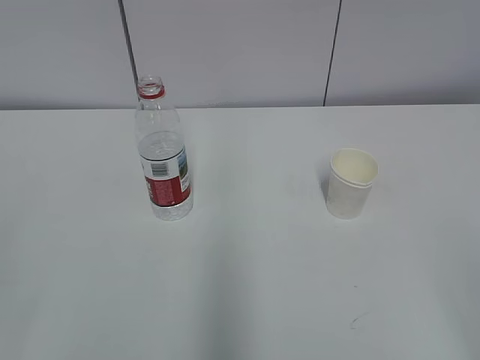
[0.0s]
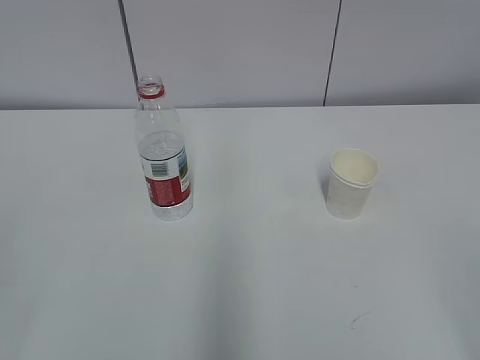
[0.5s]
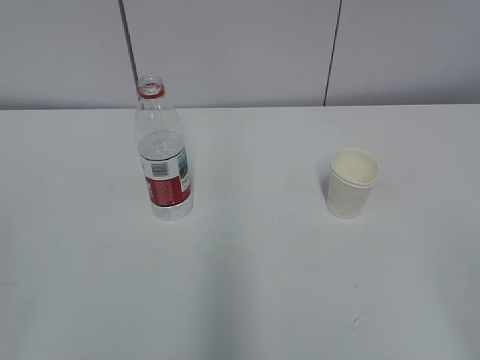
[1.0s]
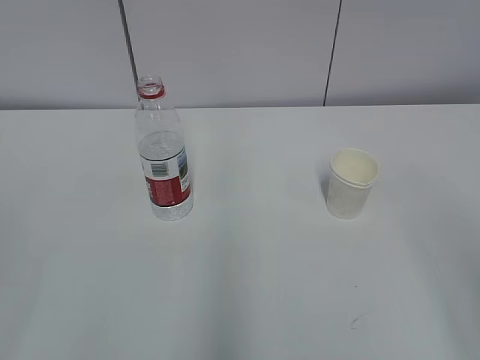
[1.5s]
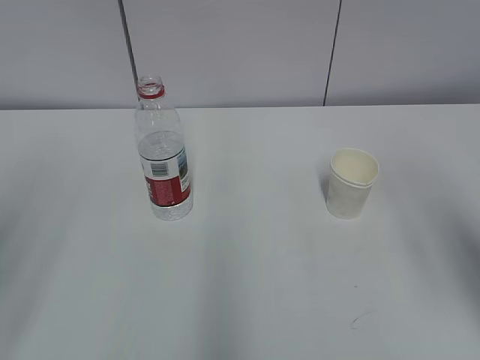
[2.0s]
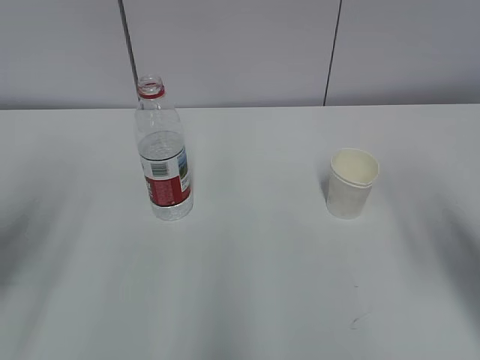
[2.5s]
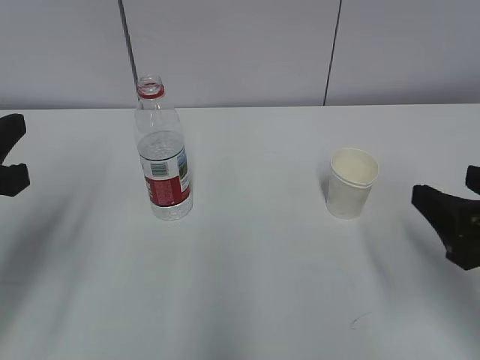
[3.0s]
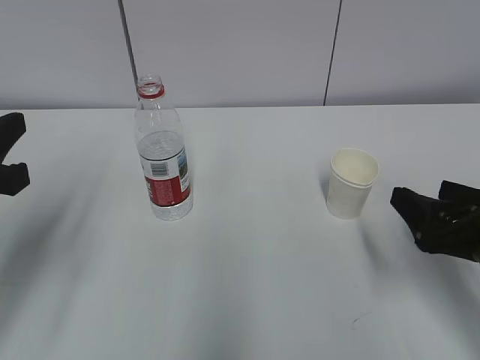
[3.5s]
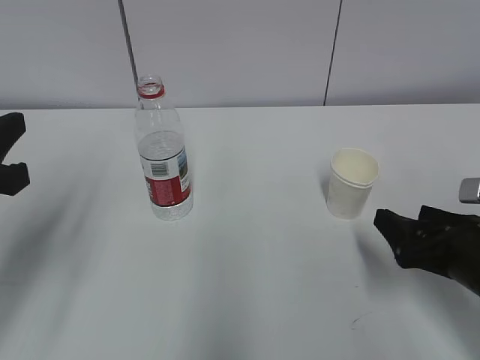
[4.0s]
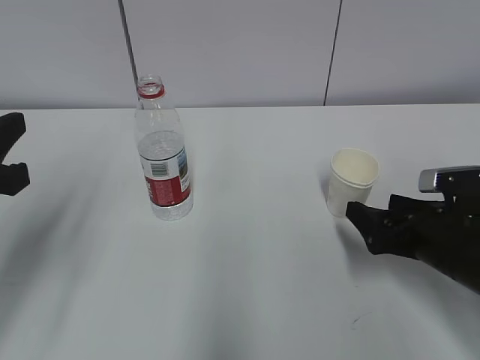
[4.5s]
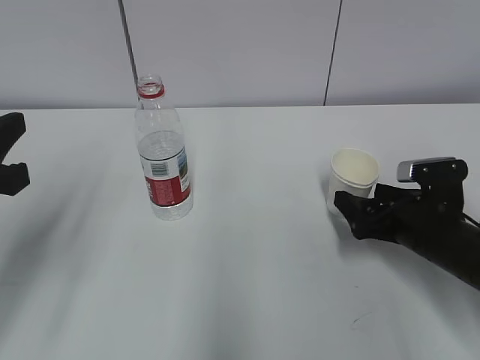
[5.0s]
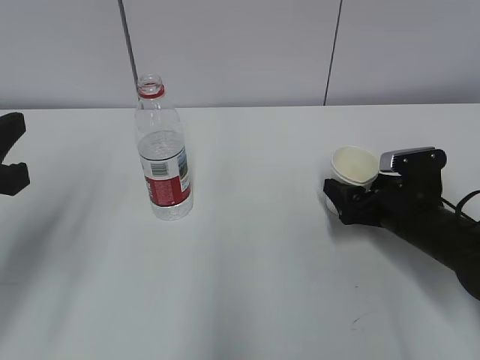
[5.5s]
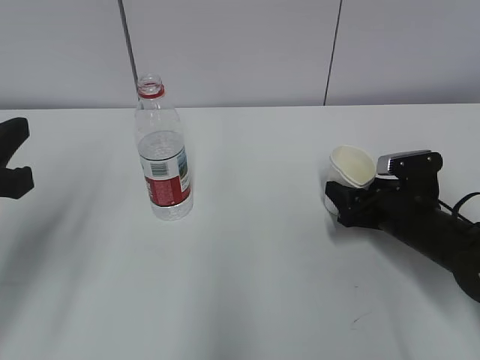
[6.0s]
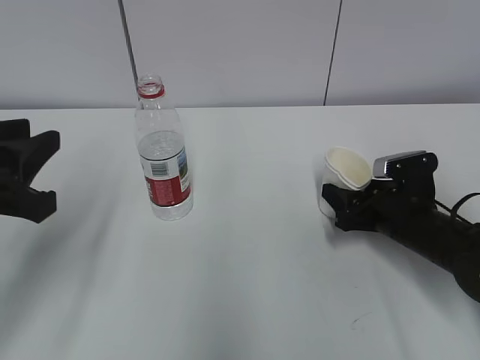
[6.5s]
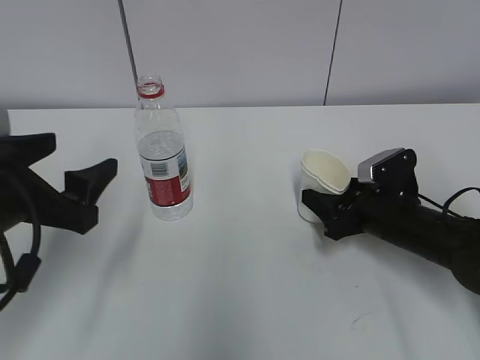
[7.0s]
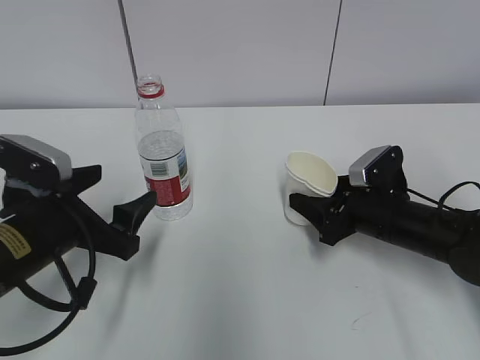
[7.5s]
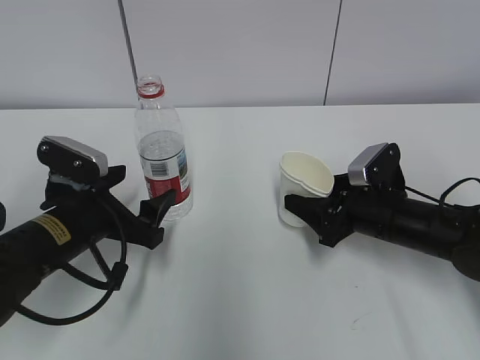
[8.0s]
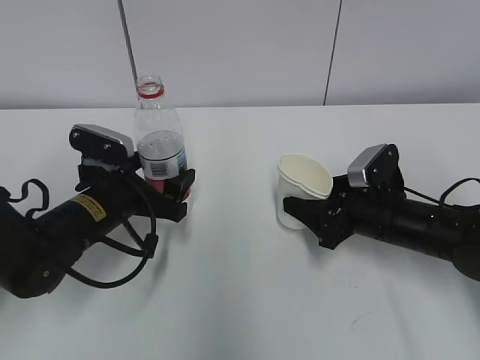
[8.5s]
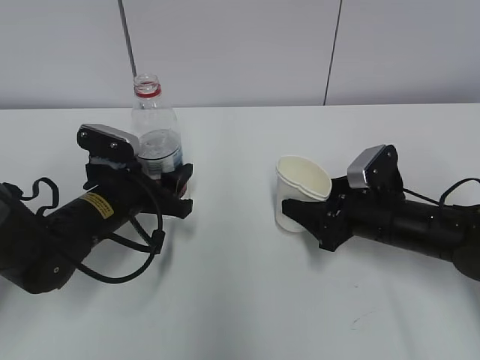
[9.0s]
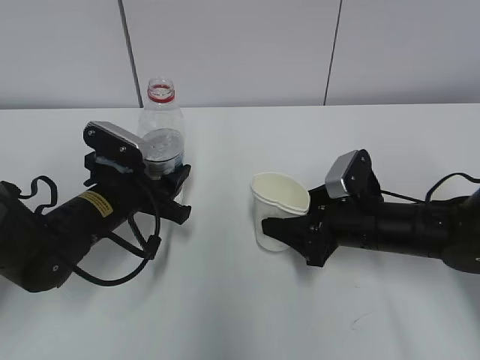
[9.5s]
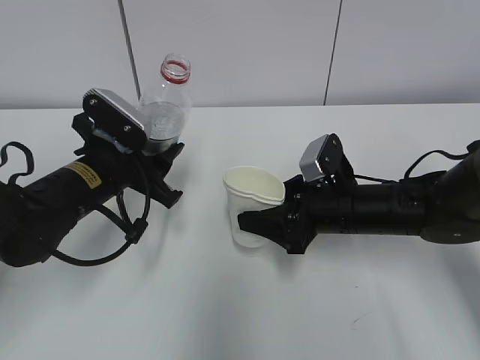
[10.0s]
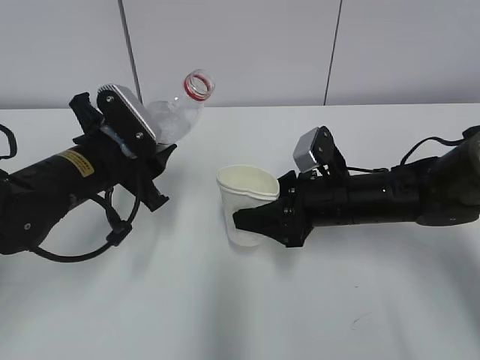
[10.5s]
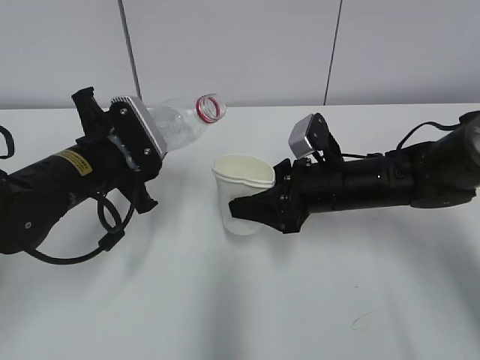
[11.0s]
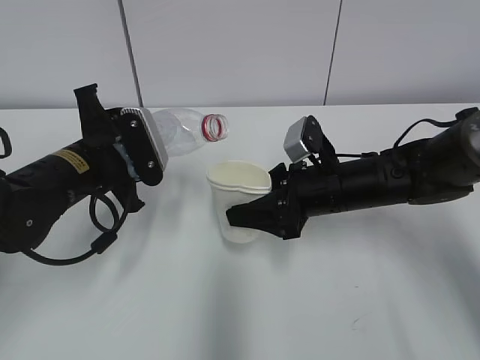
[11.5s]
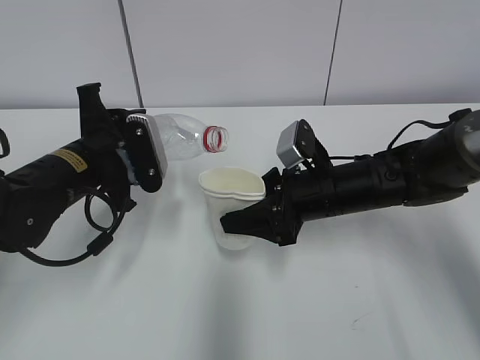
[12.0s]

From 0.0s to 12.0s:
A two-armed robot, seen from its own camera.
Step, from 0.0s to 5.5s: Grab the paper cup with the right hand.
Step, from 6.0s to 7.5s: Grab the water bottle with the left hand.
Step, from 8.0s to 11.5s: Lift the paper cup with the right hand.
From 2.0s to 4.0s: The right gripper is displaced downward and forward by some 25 cm. Meanwhile the left gripper moves downward and forward, roughly 15 cm.
From 4.0s to 6.0s: The right gripper shifts roughly 10 cm forward and downward, and closes.
From 6.0s to 8.0s: The left gripper heads downward, forward and to the right, covering about 15 cm, and opens its fingers.
From 8.0s to 10.0s: The left gripper shifts about 5 cm forward, and closes. Meanwhile the right gripper moves to the left, some 5 cm.

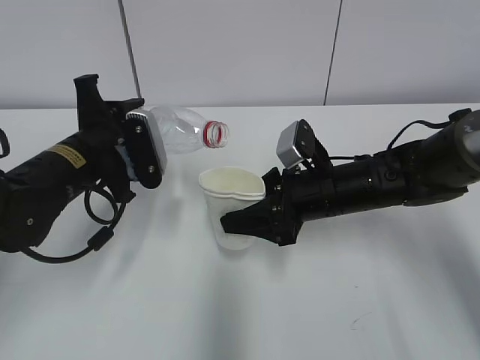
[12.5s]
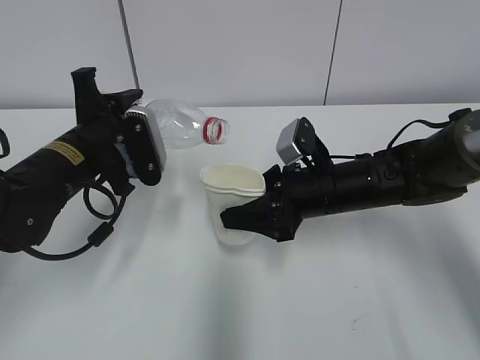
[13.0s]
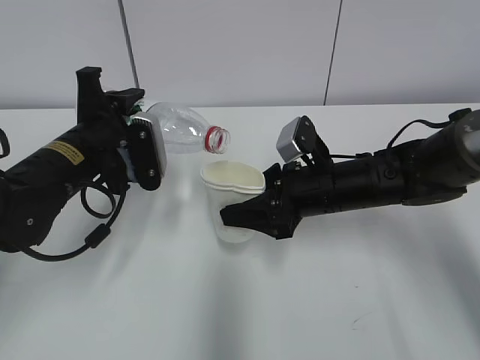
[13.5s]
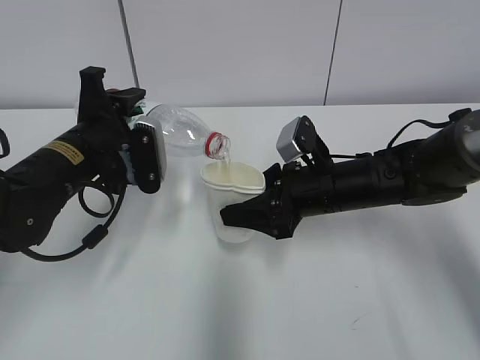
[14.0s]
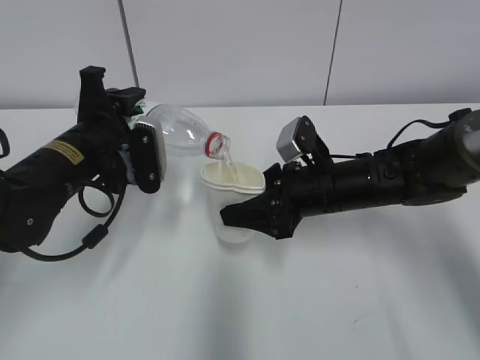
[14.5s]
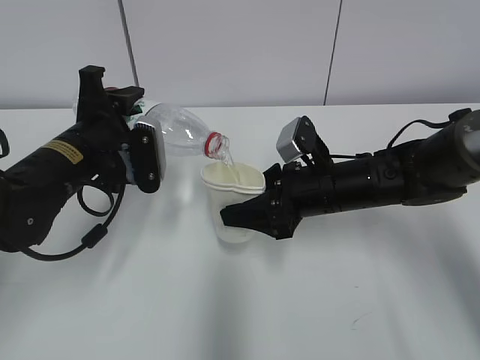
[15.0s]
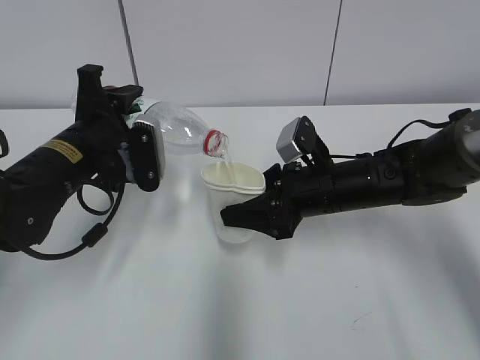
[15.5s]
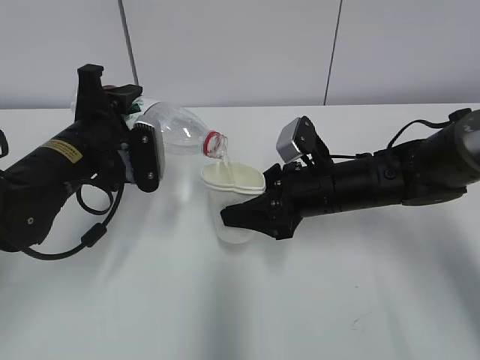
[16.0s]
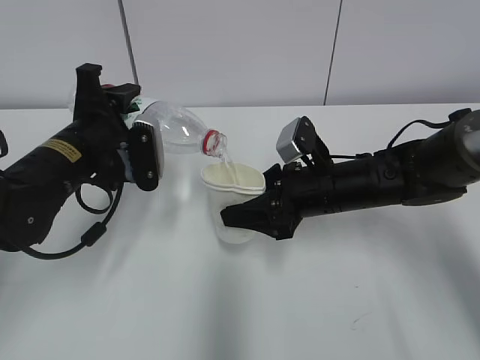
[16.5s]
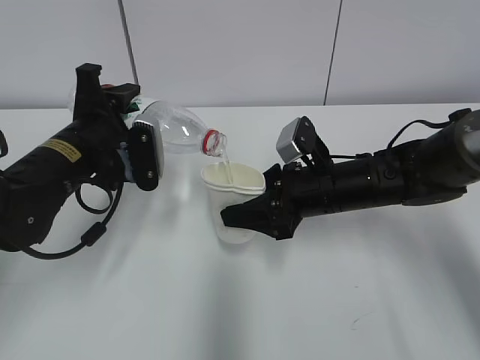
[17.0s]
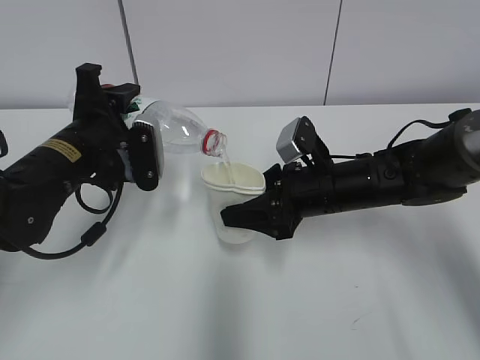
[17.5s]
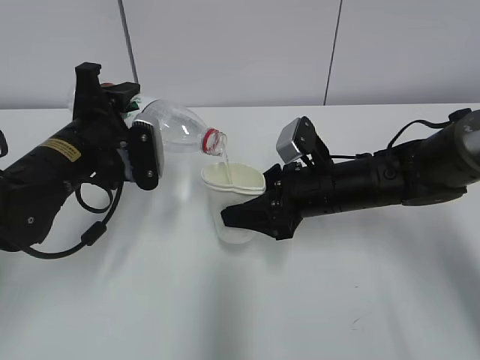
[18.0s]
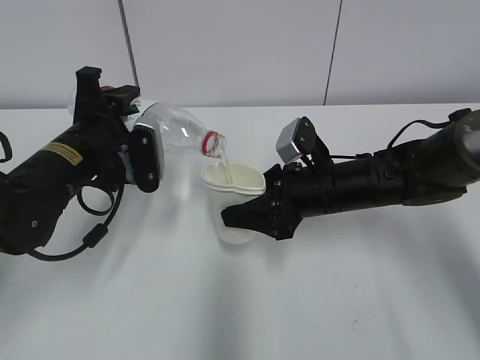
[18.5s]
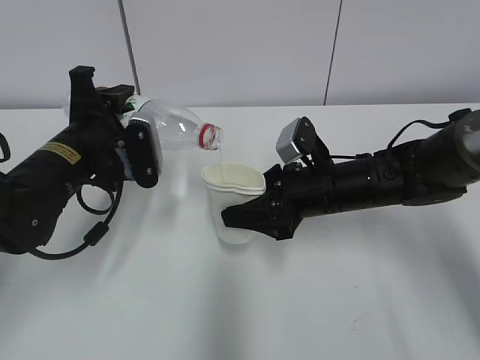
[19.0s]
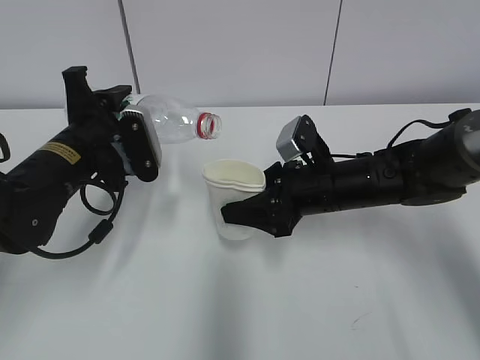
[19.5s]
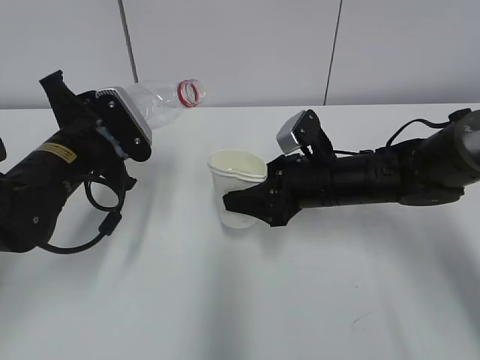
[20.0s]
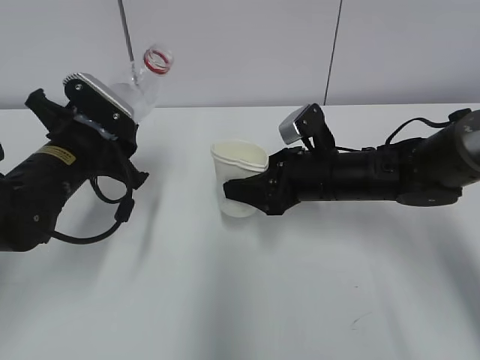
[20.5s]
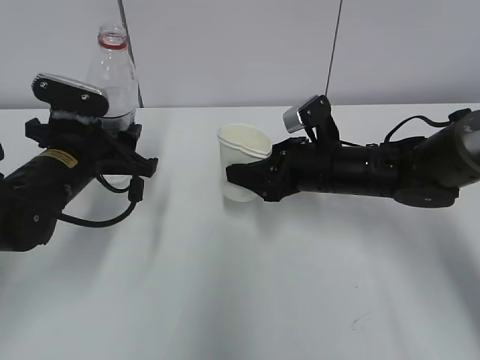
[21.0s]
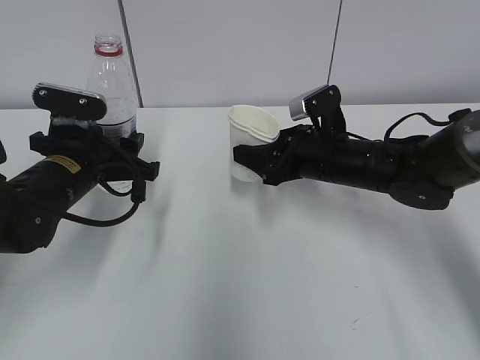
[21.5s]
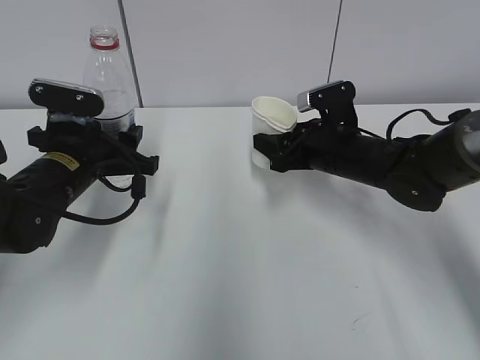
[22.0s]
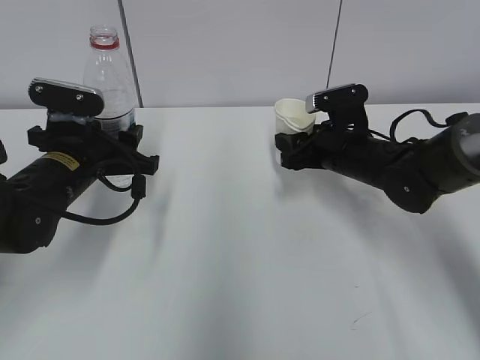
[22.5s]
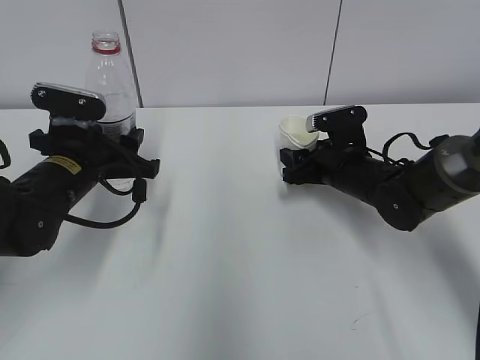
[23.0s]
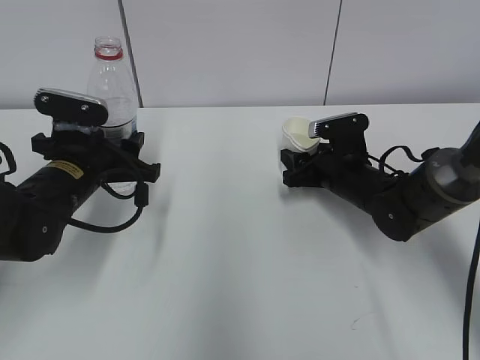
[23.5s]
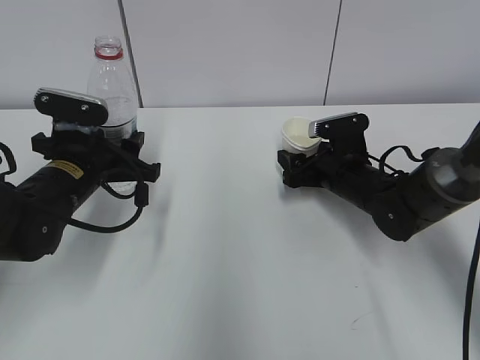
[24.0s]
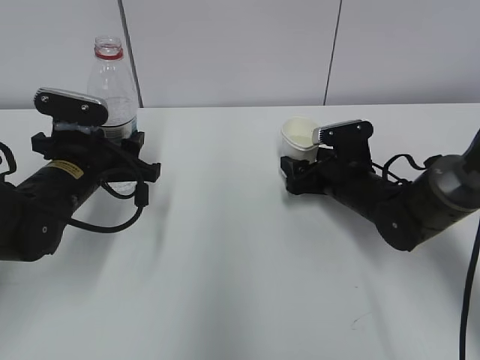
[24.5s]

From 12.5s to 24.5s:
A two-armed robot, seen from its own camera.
Step, from 12.5s to 15.5s: Fill water with the right hand.
Step, from 12.5s to 15.5s: Pour water with the left hand.
Step, from 16.0s to 17.5s: Collect water with the left hand.
Step, from 18.0s to 19.5s: Place the paper cup with the right hand.
Step, from 20.0s to 22.0s: Place the water bottle with the left hand.
From 12.5s to 14.5s: The grippers move only a little.
From 14.5s to 18.5s: The two grippers keep their place.
From 20.5s to 22.5s: The right gripper changes place by roughly 5 cm.
From 22.5s to 24.5s: The right gripper moves downward, roughly 5 cm, and opens.

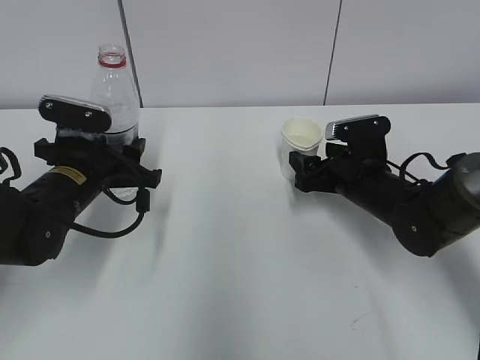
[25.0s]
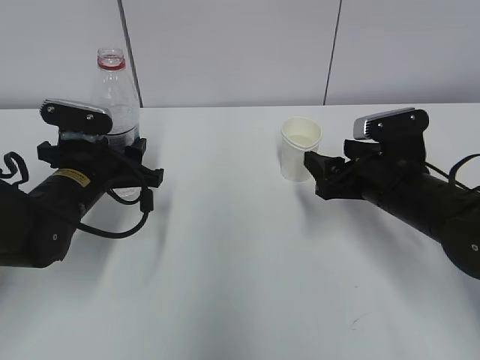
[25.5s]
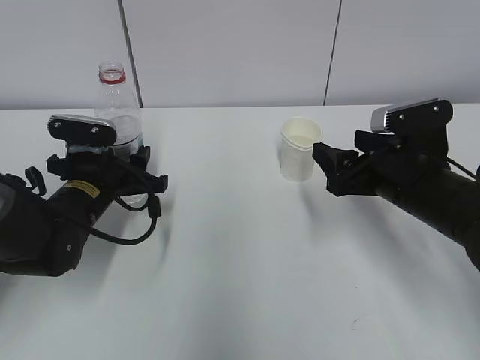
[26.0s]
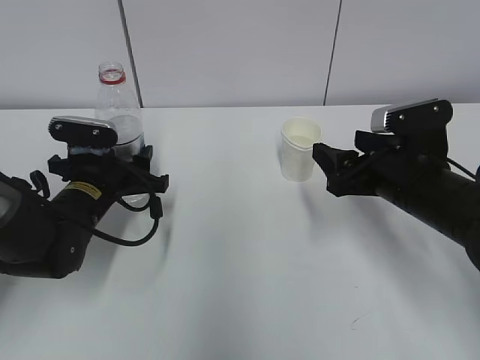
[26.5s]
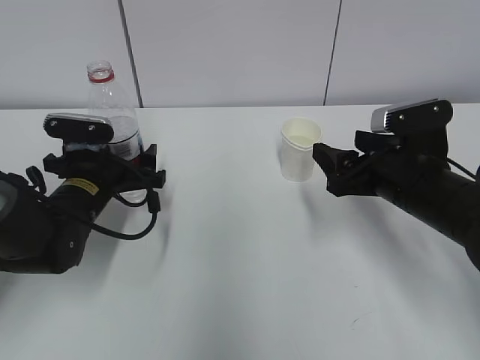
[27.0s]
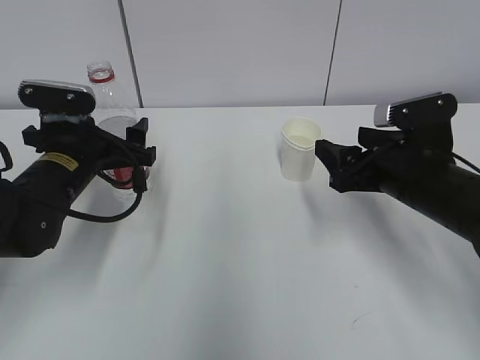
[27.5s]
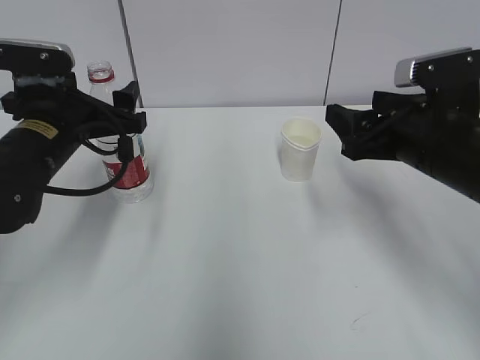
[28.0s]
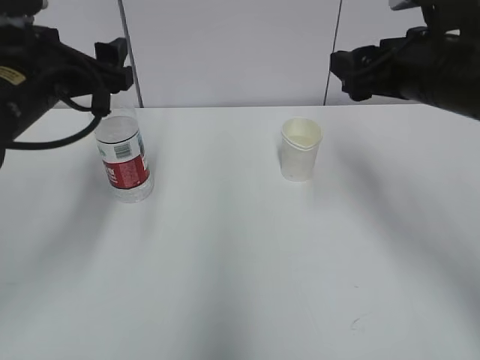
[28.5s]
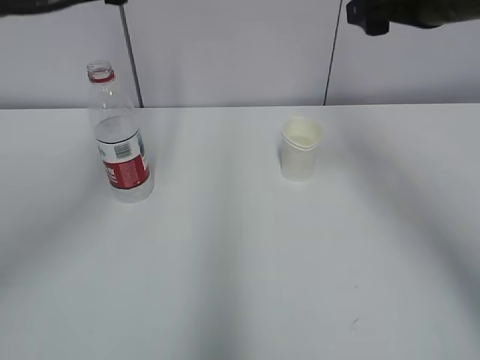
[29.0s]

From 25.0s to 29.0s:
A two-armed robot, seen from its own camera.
From 25.0s to 27.0s: The right gripper goes roughly 10 cm backward and upward. The left gripper opens.
From 27.0s to 29.0s: Both grippers move upward, about 20 cm.
